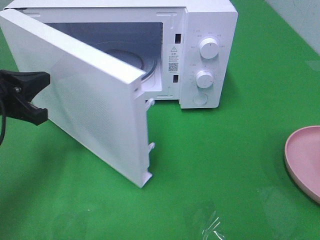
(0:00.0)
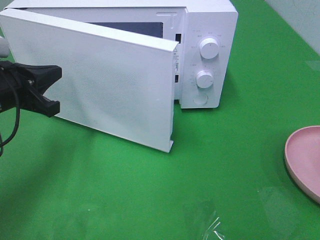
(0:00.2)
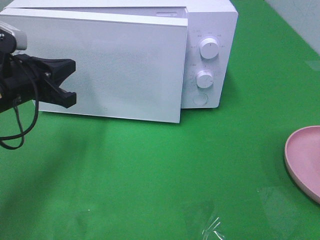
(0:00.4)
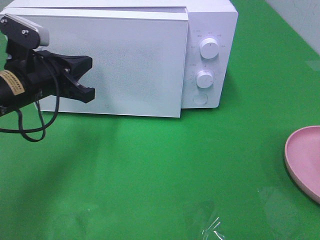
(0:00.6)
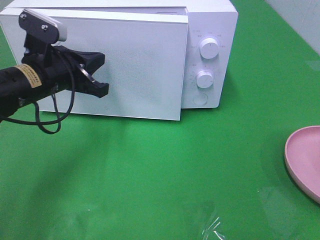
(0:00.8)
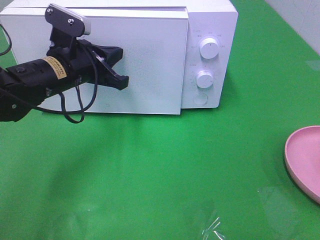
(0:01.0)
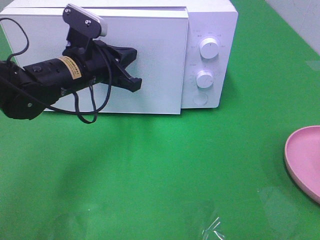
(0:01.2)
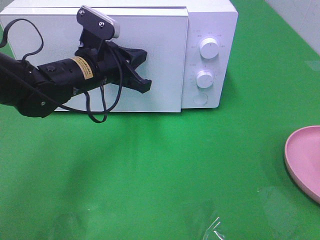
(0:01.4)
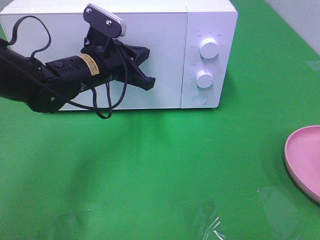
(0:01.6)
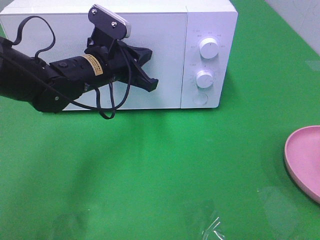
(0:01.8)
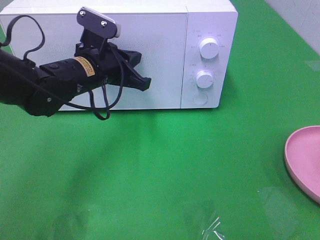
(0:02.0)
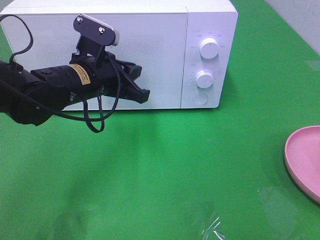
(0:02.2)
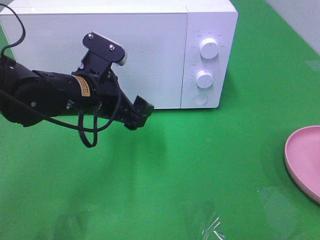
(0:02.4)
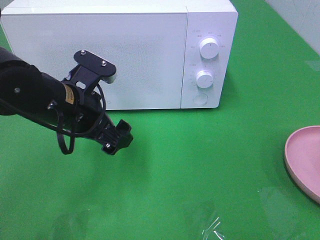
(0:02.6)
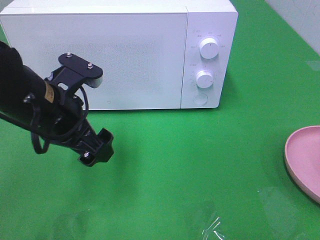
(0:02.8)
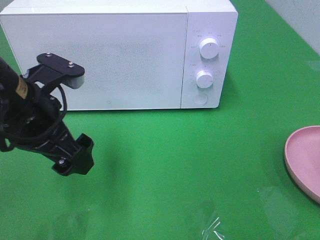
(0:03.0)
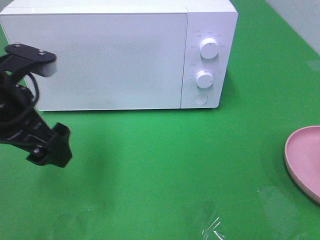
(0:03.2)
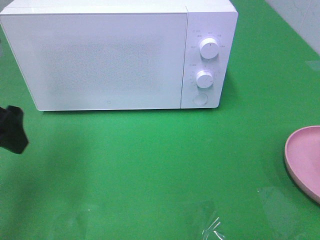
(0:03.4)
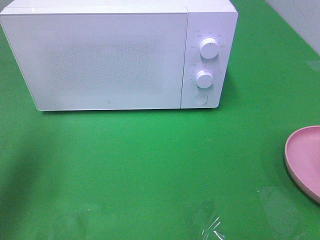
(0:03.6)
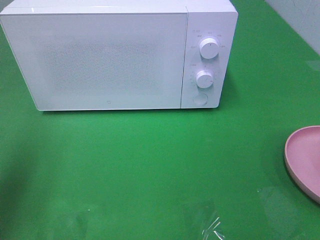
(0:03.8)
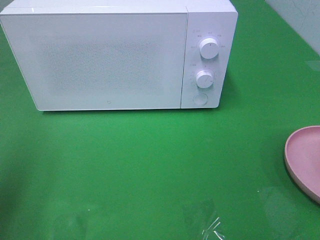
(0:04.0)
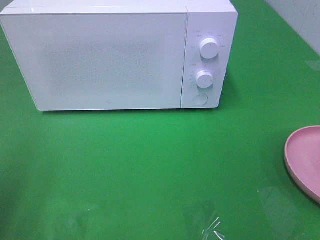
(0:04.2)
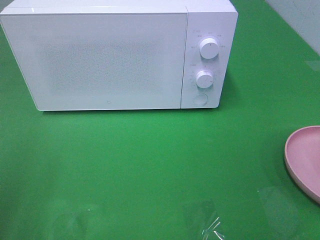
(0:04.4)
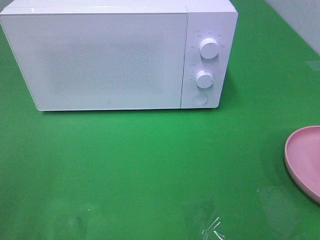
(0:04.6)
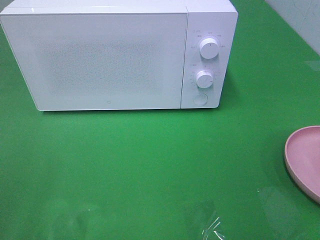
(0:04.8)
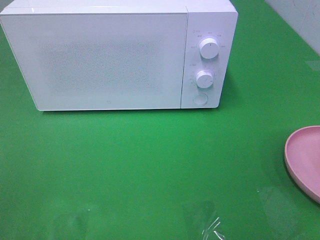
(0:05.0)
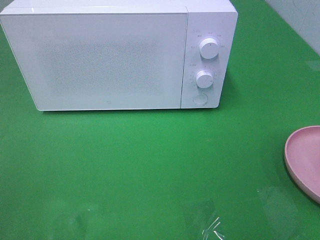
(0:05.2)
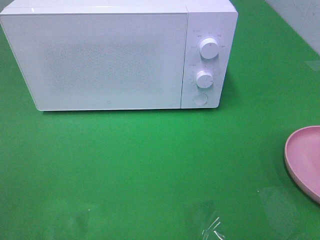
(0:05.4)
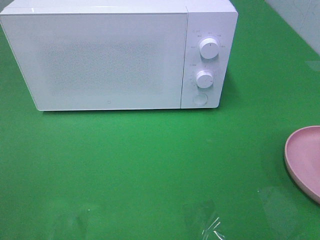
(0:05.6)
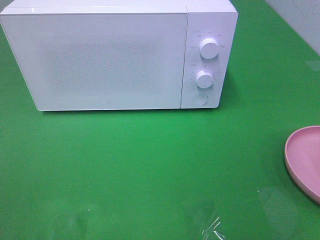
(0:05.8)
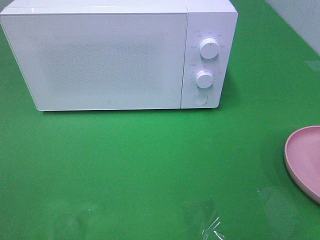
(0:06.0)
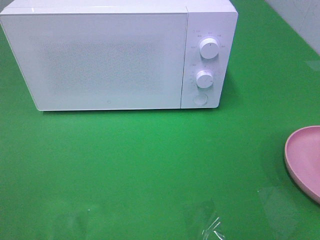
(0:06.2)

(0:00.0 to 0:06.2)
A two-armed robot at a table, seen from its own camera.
Task of the whole recording: Heat the burger.
Step, 0:00.0 - 0:02.2: Left hand: close the microwave door.
0:00.0 - 0:01.6: The left gripper moves to the right and forward, approximately 20 cm.
0:01.6 - 0:03.2: The left gripper is displaced backward, to the left and upward by about 20 cm, and opens.
0:03.2 - 0:04.6: The left gripper moves backward and to the left, roughly 20 cm.

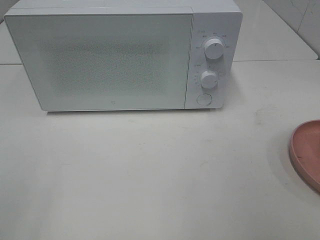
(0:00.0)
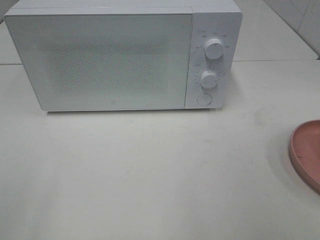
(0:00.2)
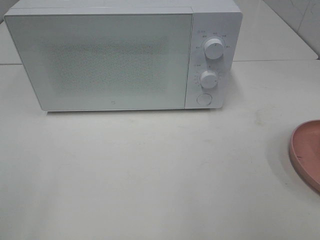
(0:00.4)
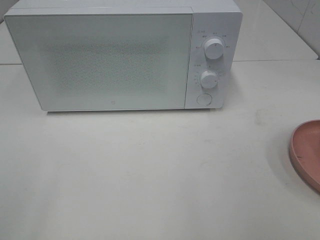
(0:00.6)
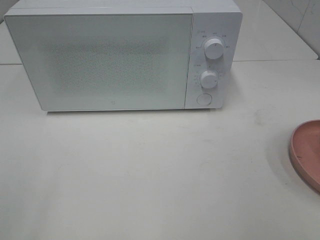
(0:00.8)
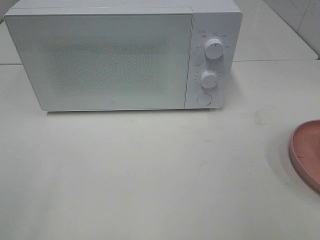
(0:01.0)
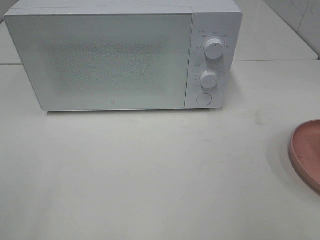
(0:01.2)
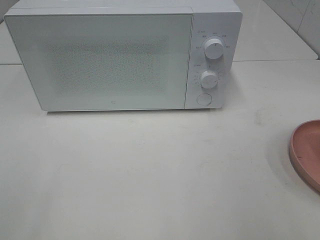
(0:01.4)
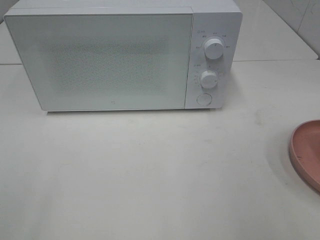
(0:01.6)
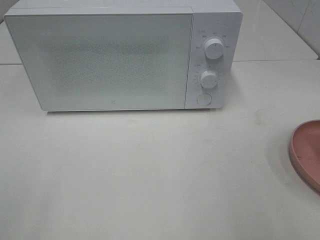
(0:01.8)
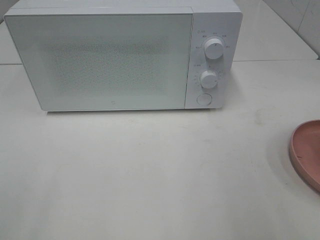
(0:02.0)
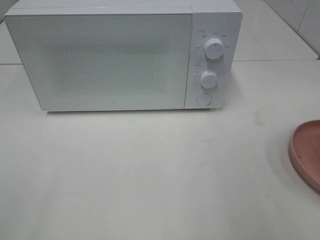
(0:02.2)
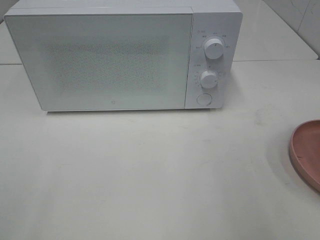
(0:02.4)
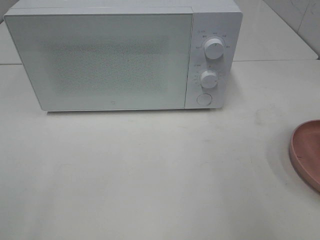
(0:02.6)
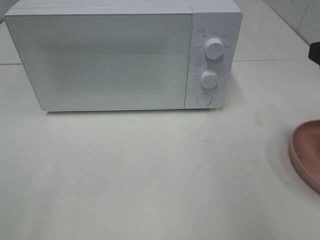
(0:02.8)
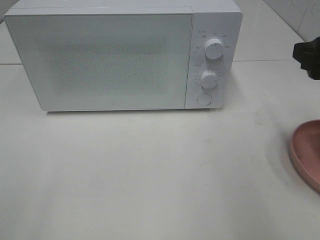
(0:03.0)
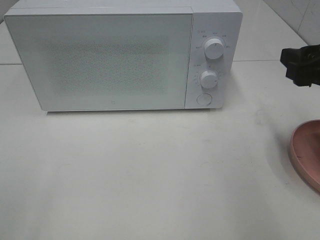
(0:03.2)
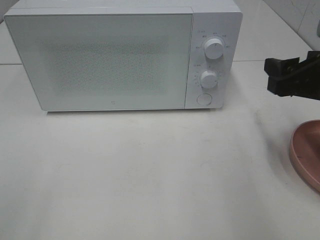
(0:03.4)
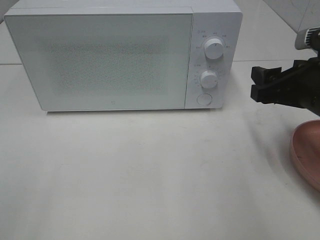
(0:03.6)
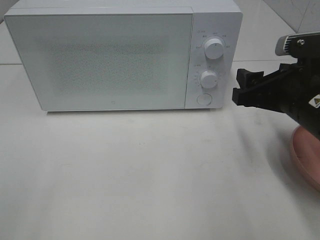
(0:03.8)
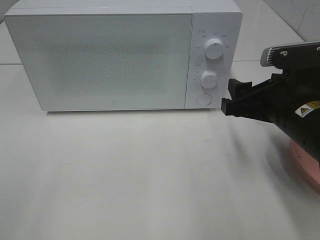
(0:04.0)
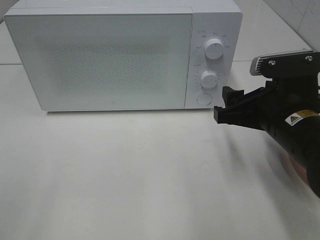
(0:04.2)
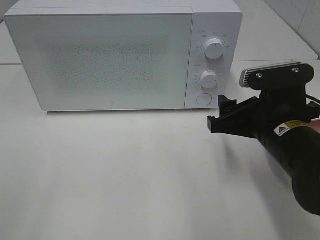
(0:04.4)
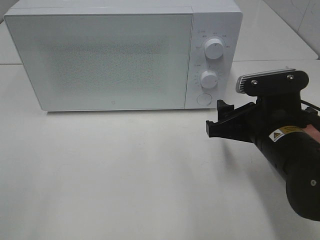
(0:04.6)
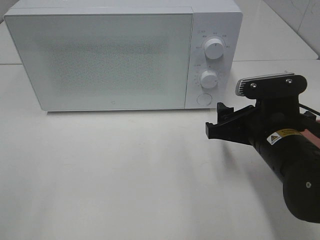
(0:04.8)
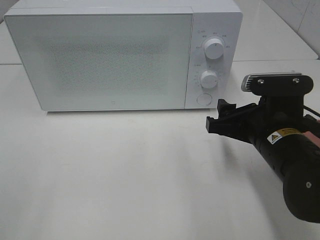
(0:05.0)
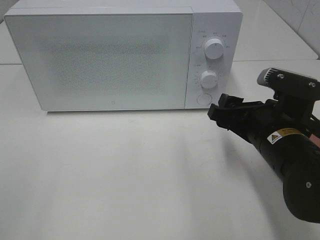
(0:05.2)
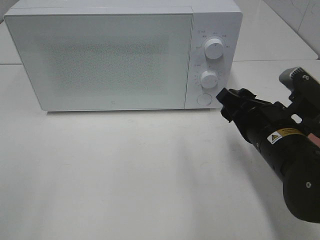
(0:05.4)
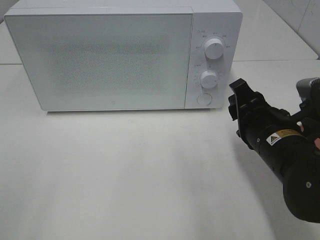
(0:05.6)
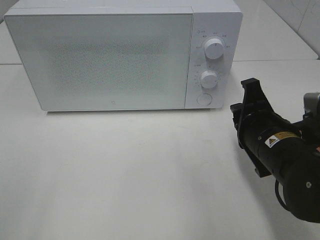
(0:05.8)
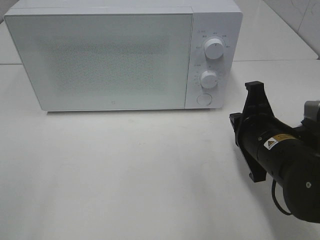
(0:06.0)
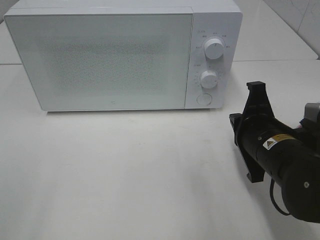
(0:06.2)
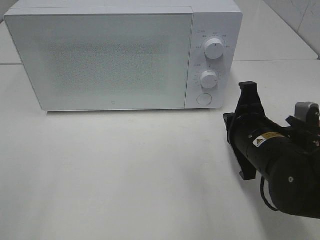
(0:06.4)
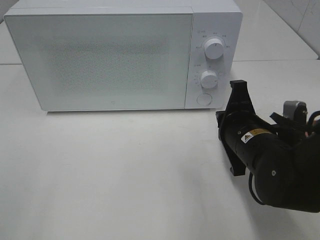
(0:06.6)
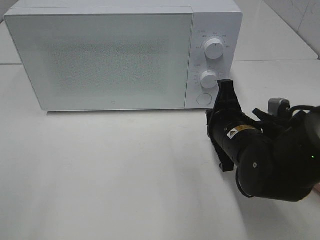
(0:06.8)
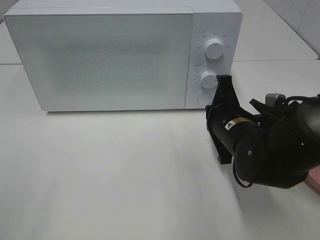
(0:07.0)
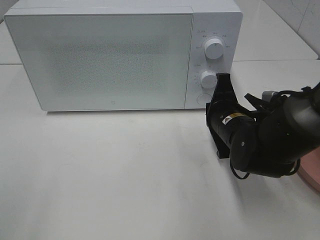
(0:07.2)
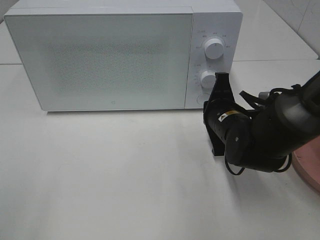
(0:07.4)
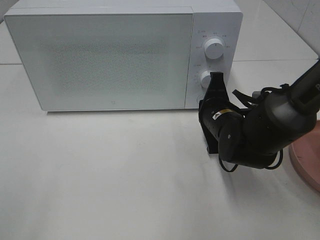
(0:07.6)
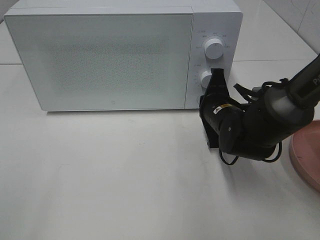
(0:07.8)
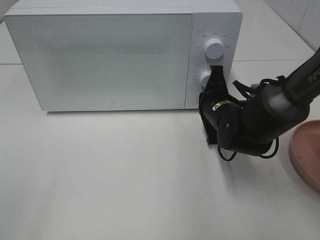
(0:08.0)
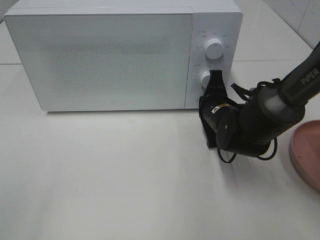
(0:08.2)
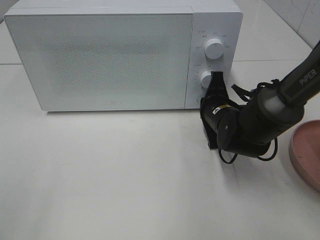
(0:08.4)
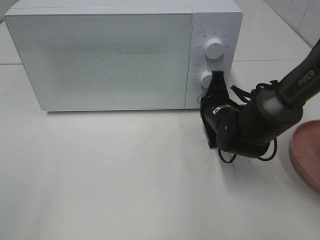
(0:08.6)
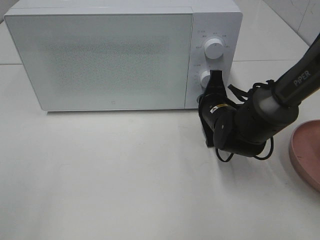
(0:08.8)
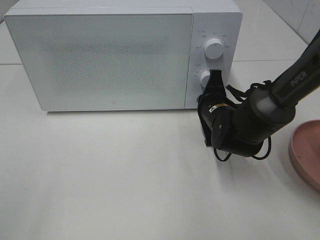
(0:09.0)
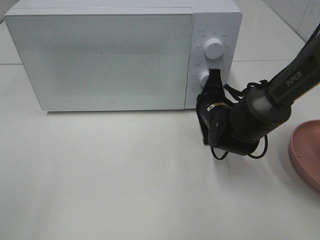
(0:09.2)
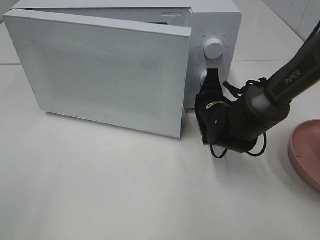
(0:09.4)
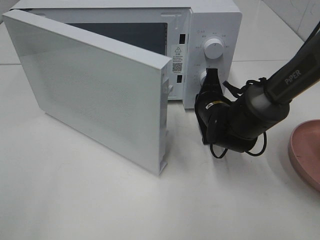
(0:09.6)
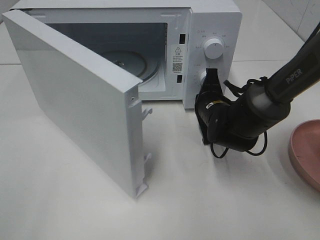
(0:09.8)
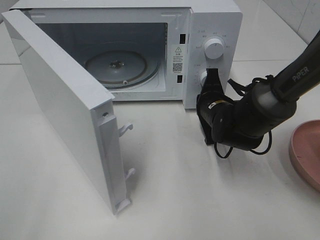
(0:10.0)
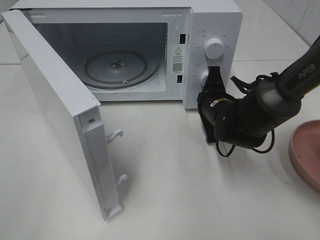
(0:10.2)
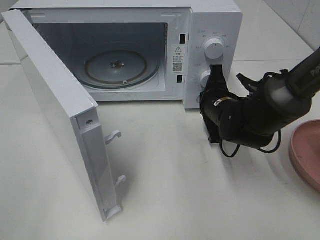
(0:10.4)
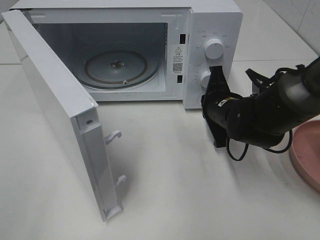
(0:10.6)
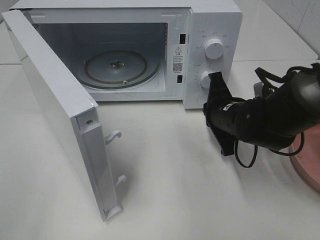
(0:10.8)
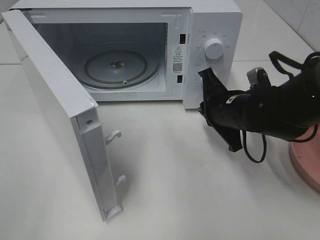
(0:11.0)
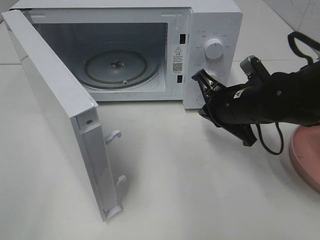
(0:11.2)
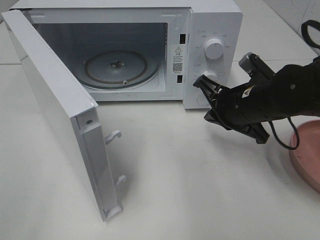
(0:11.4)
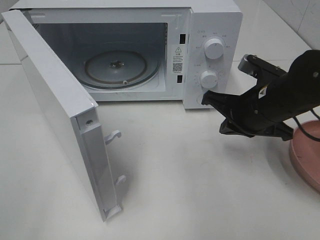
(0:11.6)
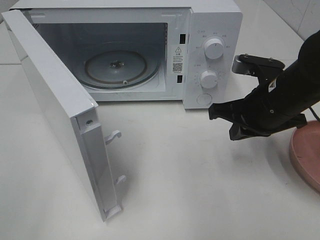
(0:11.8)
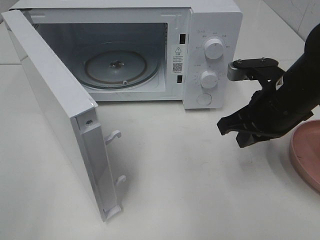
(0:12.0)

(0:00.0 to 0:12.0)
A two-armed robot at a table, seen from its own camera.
Task of the whole recording: Heat the burger.
Step, 0:00.0 - 0:10.8: Right hand: press the switch.
0:01.6 - 0:03.0: The right gripper moves forward, about 15 cm.
0:03.0 - 0:04.4: The right gripper goes roughly 15 cm downward and to the left.
0:04.4 - 0:06.0: The right gripper closes its fingers.
0:06.0 - 0:07.6: The right gripper heads forward, covering approximately 10 cm.
0:07.6 - 0:09.0: The grippers make only small movements.
0:10.4 - 0:12.0: The right gripper heads upward and backward, covering some 10 cm.

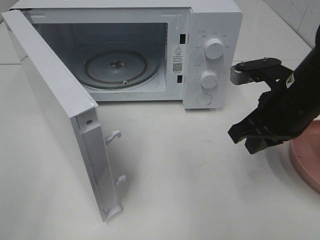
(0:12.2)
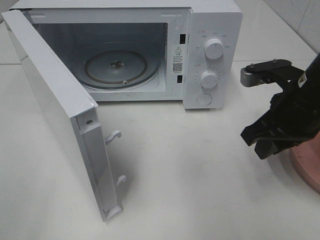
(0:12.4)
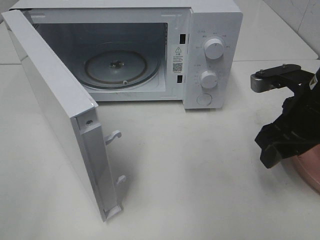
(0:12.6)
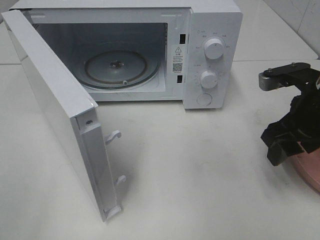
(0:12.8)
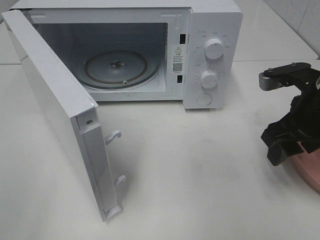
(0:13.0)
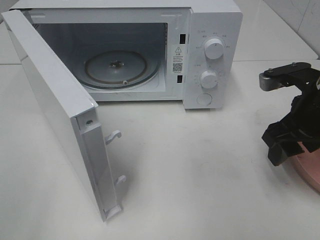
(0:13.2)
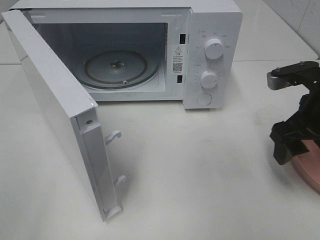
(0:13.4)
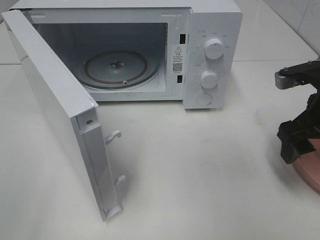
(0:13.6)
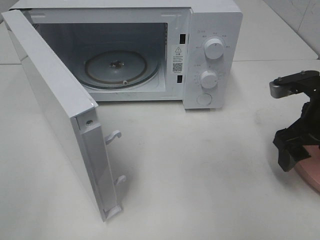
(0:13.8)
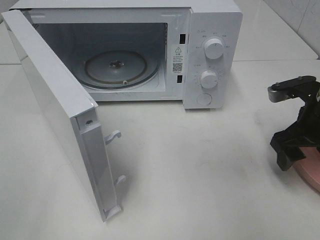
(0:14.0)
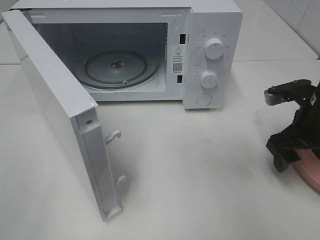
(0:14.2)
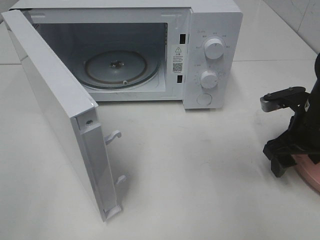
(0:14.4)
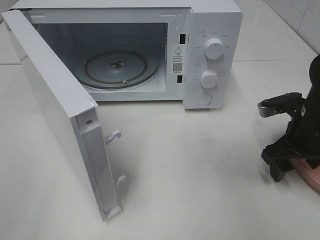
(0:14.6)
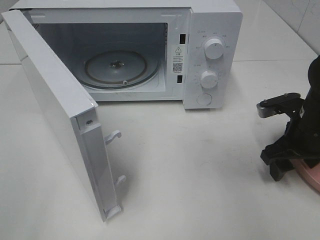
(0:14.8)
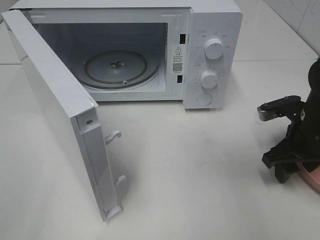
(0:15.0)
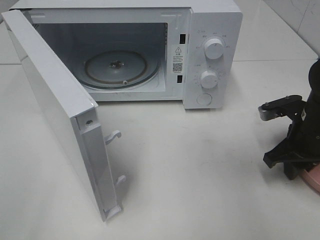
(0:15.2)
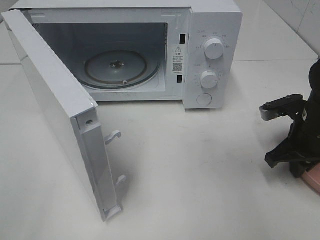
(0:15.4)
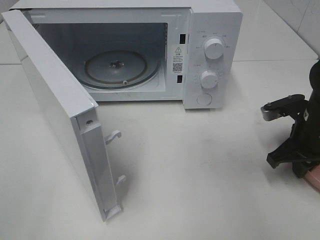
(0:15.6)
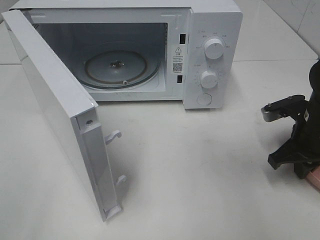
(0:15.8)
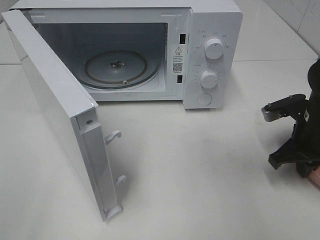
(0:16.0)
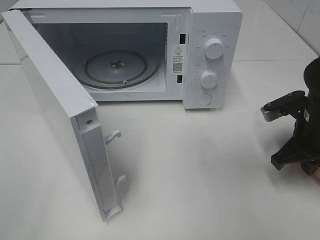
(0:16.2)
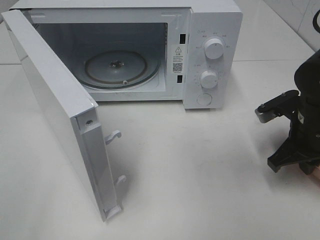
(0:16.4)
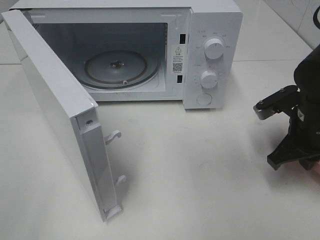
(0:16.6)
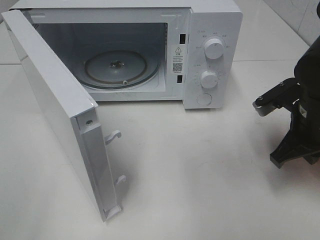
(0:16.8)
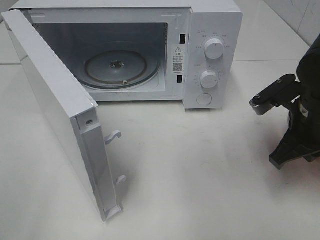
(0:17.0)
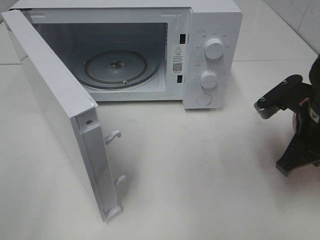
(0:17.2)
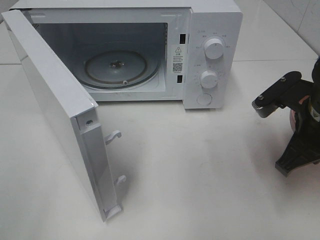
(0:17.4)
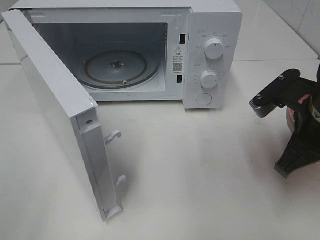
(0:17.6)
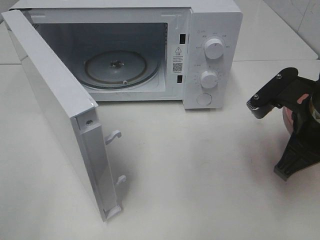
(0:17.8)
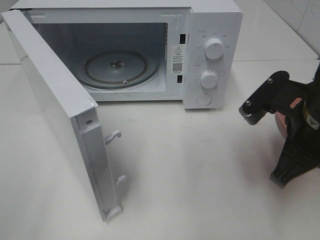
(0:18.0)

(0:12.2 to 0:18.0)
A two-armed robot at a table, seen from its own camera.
Task of the whole recording: Heat the burger.
Step, 0:12.2 - 0:16.2: Right hand: grab the plate with the hamburger.
0:12.2 - 0:13.6: The right gripper goes roughly 5 cm to the right, and opens.
0:13.6 - 0:15.0: The right gripper shifts roughly 10 cm downward.
0:15.0 - 0:16.6: The right gripper closes its fingers.
0:16.6 - 0:18.0: The right gripper moves backward, upward and to the left, approximately 10 cm.
